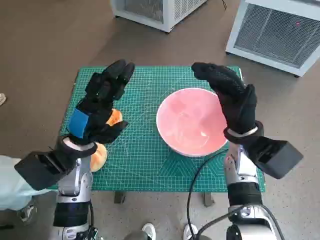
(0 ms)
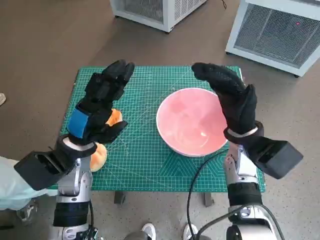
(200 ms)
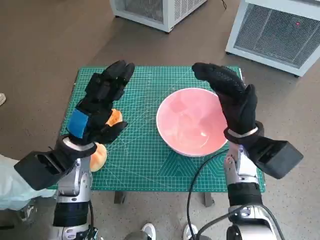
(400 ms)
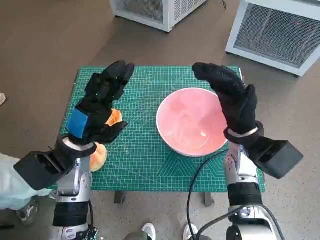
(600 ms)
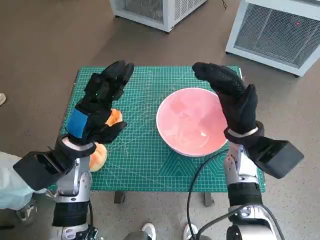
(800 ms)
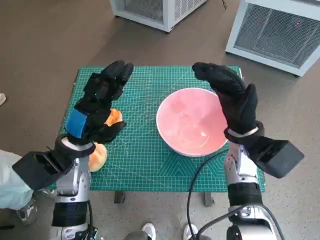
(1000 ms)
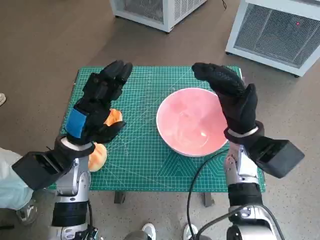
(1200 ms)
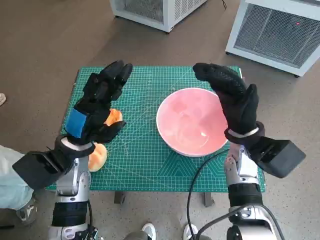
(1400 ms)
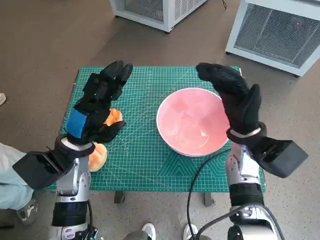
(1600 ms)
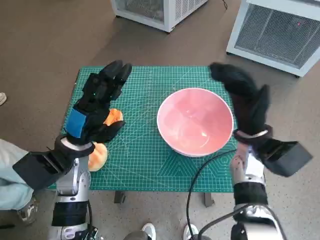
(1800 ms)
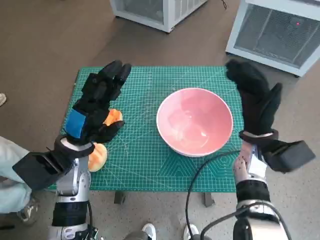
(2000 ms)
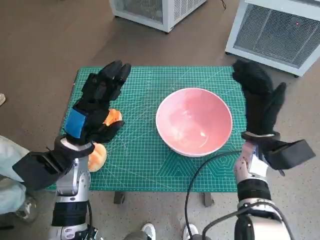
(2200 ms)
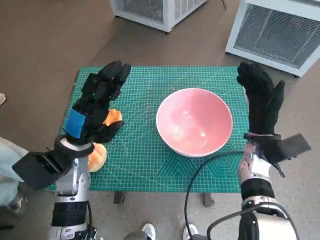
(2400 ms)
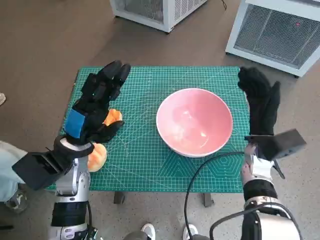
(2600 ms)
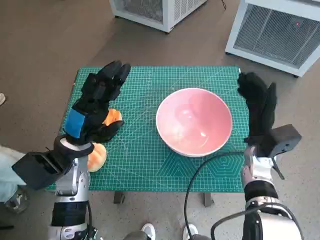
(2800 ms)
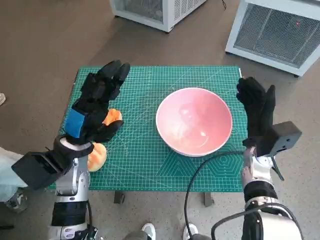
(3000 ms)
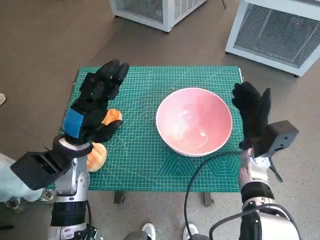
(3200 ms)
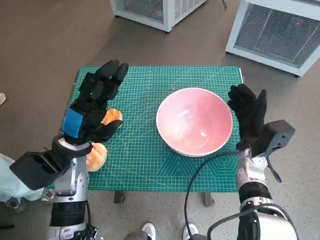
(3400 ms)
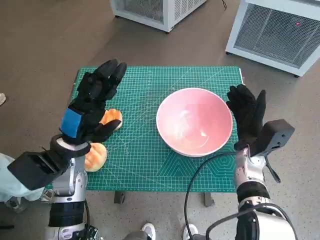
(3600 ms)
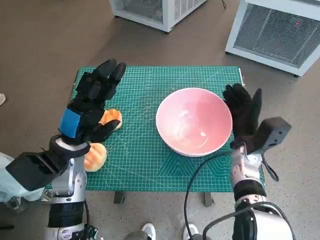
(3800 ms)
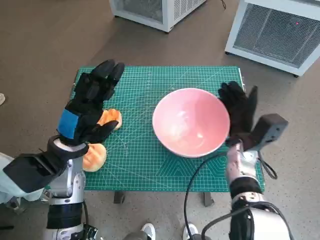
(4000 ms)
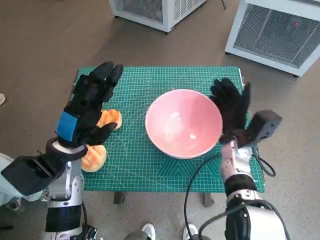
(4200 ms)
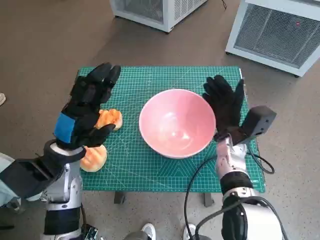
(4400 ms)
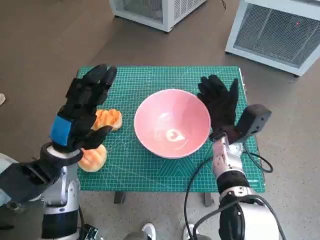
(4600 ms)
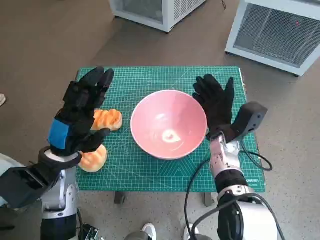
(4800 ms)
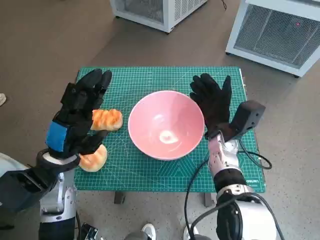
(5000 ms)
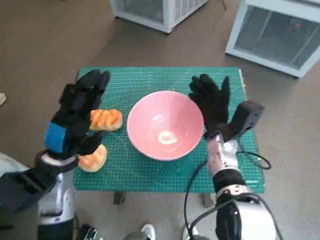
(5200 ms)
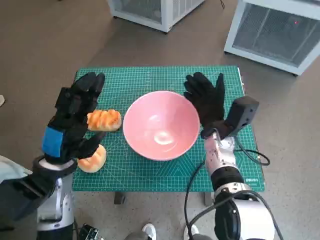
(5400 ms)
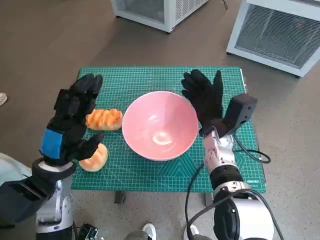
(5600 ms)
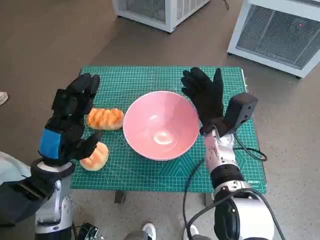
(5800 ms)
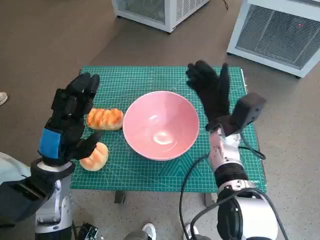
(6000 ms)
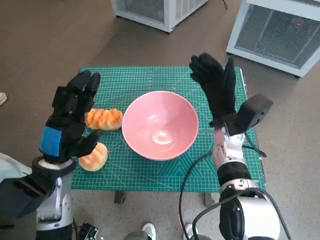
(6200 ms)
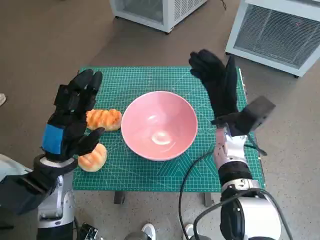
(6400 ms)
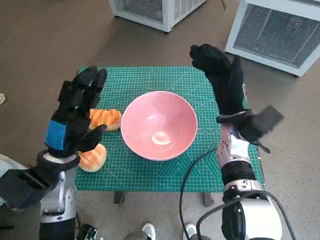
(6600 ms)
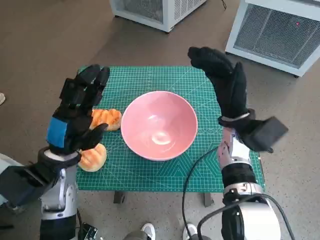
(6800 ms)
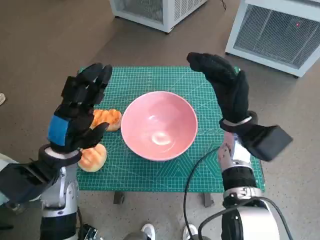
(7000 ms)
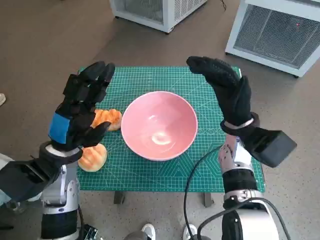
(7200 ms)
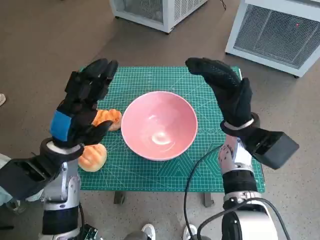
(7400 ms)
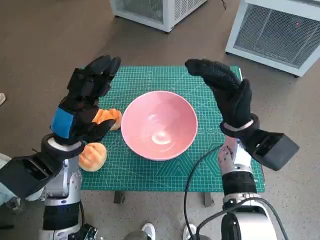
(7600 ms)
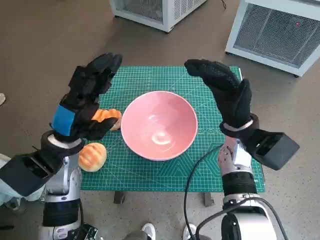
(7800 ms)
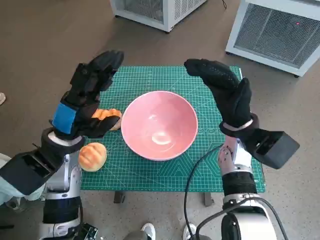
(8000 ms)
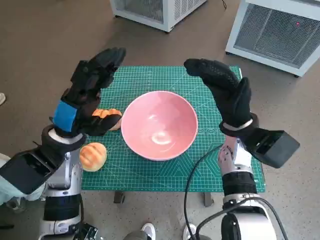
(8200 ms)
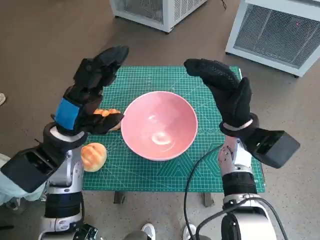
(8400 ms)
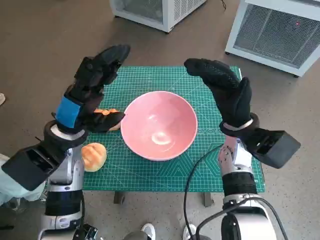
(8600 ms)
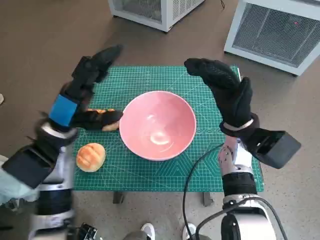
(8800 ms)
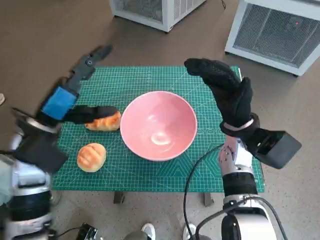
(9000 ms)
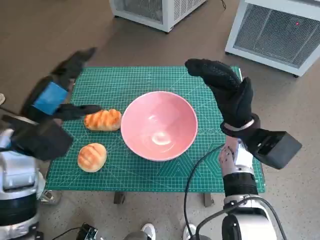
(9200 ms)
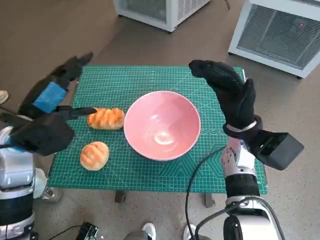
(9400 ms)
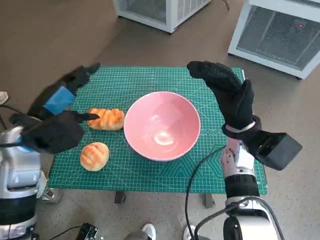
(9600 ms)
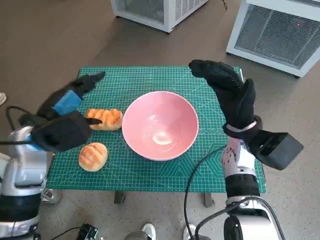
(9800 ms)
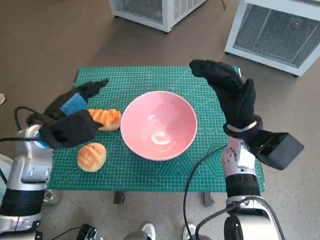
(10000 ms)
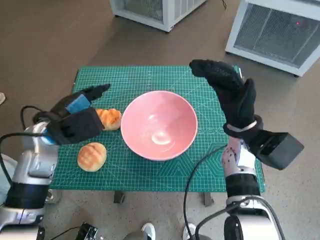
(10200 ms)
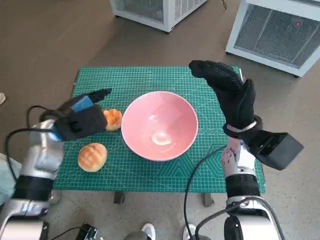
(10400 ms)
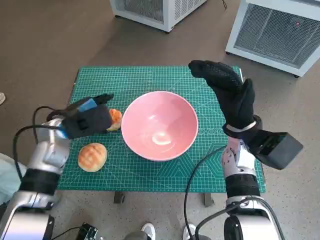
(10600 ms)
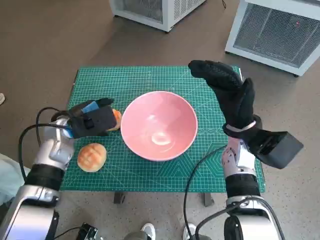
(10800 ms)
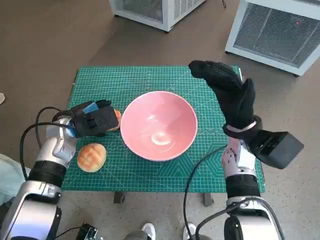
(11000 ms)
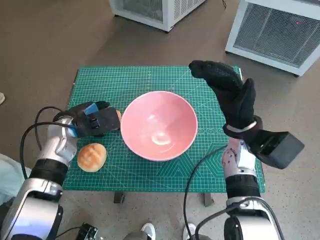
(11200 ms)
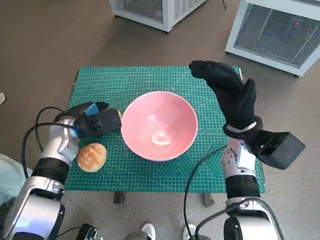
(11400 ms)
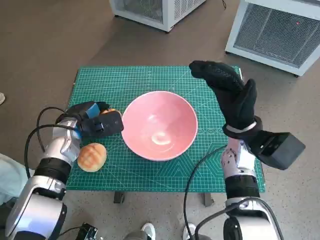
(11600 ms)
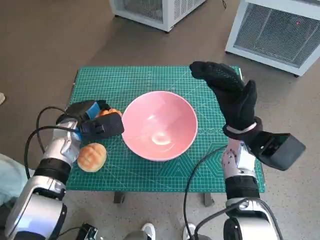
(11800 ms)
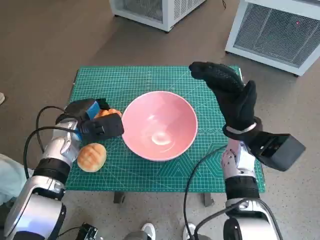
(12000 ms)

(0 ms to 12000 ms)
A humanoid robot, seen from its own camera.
Task of the whole recording: Push the bowl into the center of the table and put the bread into the bowl.
Step, 0 ms - 6000 ms: Move the pink bowl to the center of table with right hand.
Step, 6200 ms - 11400 ms: Grasp the long bread with left hand.
1600 ms - 3000 ms: The right hand shifts about 5 cm downward.
3000 ms - 4400 ms: The right hand shifts some 5 cm to the left.
7600 ms - 9000 ms: The left hand changes place by roughly 5 cm.
9000 ms - 10400 ms: The left hand ends up about 5 cm from where it was.
10400 ms - 12000 ms: The left hand changes place by some 5 cm.

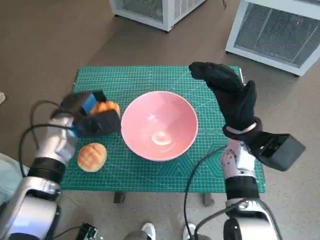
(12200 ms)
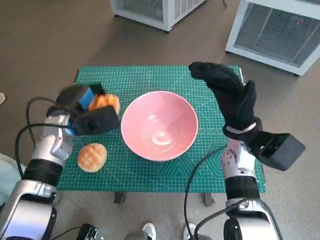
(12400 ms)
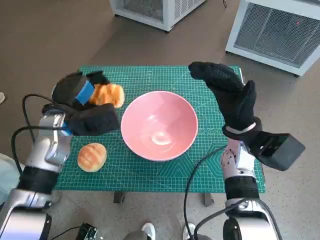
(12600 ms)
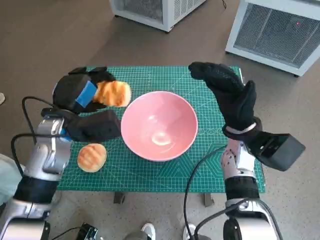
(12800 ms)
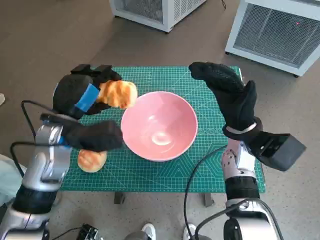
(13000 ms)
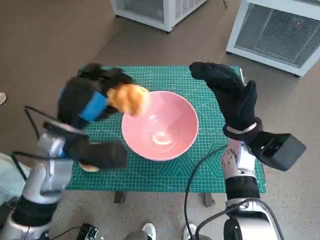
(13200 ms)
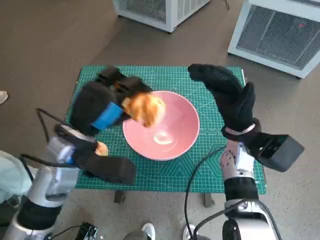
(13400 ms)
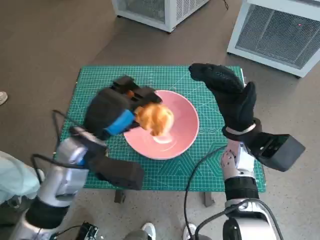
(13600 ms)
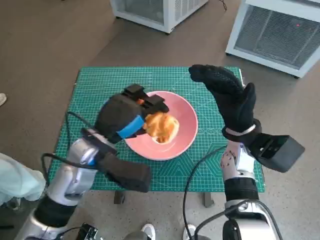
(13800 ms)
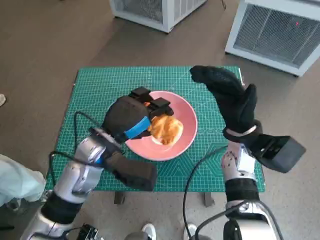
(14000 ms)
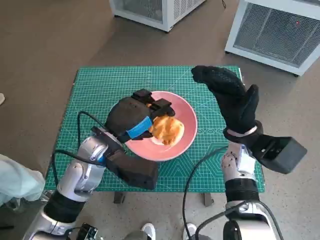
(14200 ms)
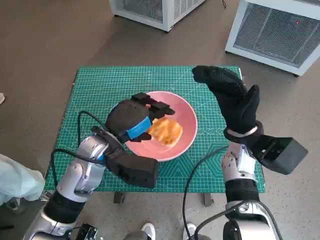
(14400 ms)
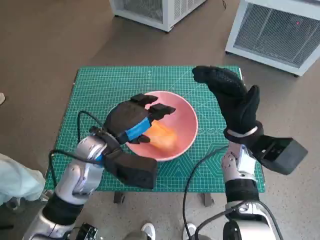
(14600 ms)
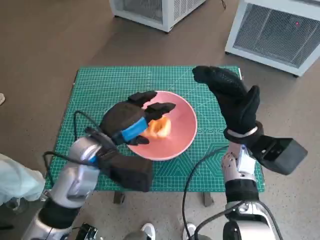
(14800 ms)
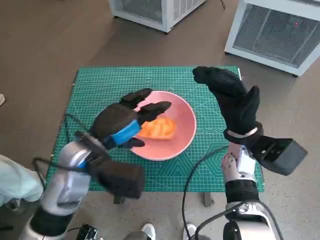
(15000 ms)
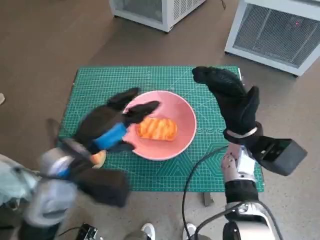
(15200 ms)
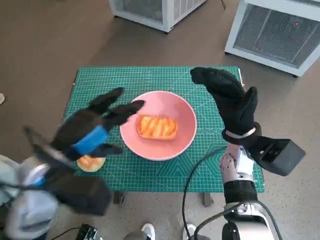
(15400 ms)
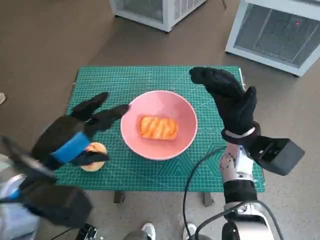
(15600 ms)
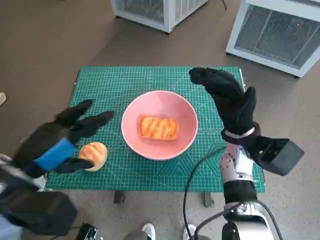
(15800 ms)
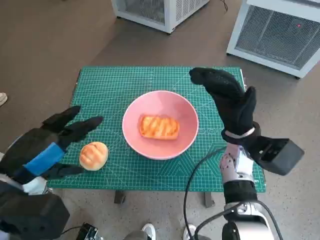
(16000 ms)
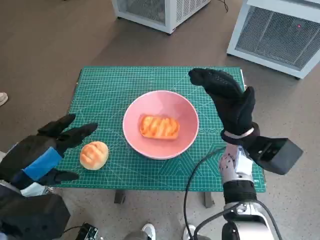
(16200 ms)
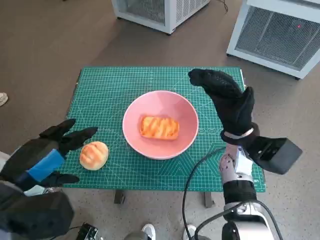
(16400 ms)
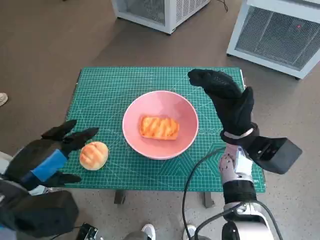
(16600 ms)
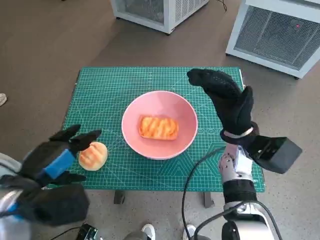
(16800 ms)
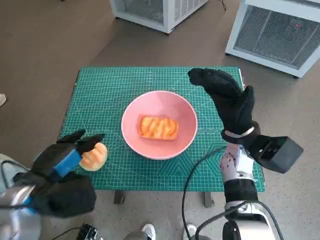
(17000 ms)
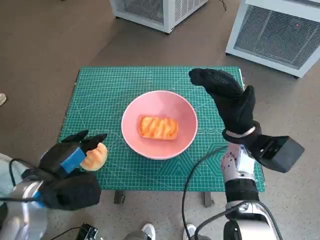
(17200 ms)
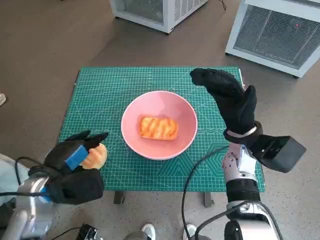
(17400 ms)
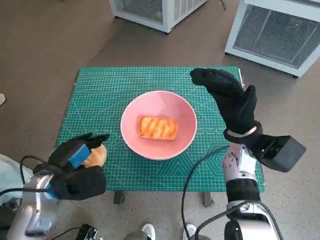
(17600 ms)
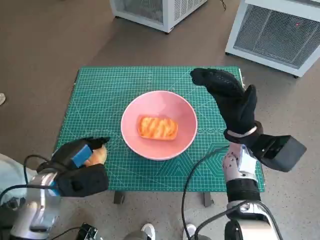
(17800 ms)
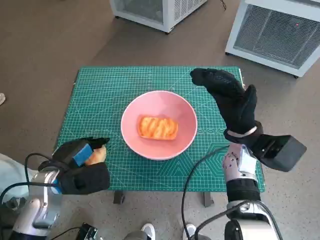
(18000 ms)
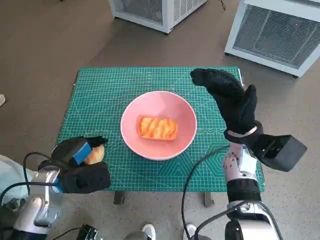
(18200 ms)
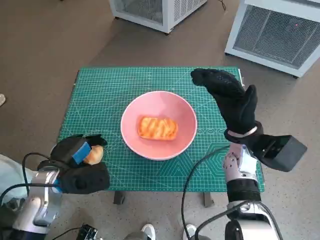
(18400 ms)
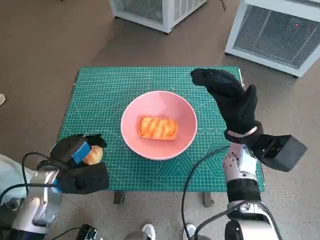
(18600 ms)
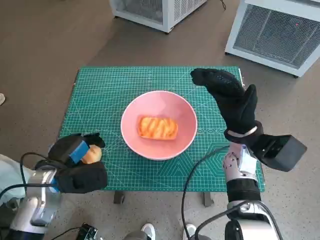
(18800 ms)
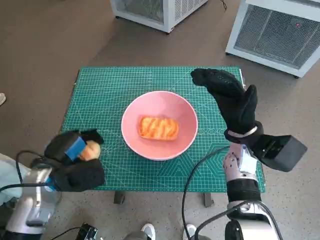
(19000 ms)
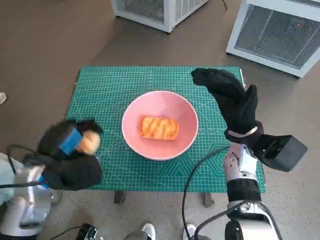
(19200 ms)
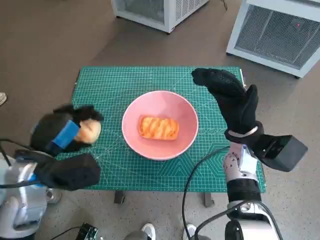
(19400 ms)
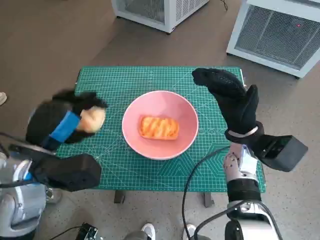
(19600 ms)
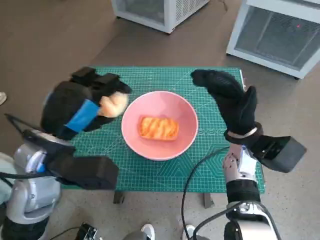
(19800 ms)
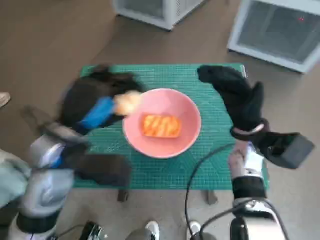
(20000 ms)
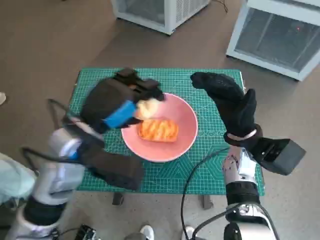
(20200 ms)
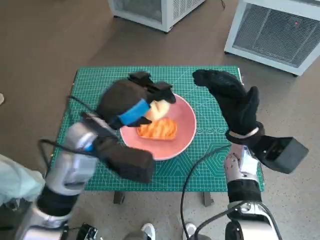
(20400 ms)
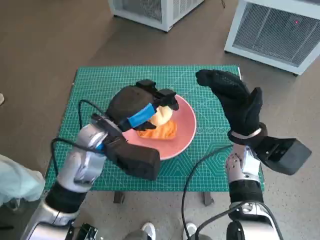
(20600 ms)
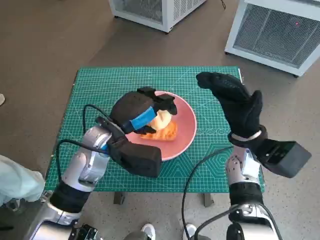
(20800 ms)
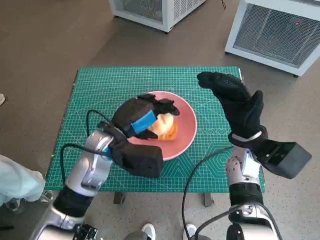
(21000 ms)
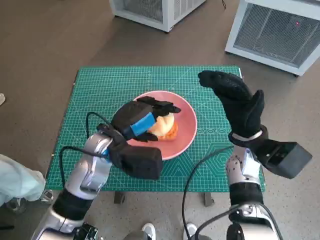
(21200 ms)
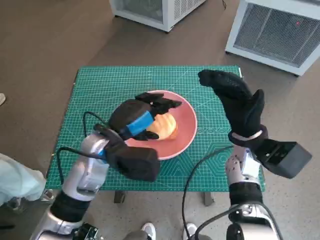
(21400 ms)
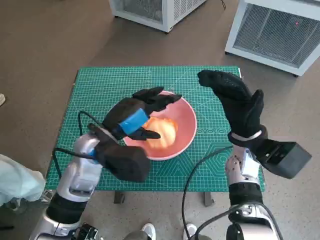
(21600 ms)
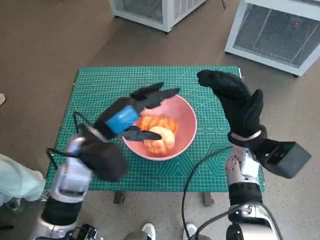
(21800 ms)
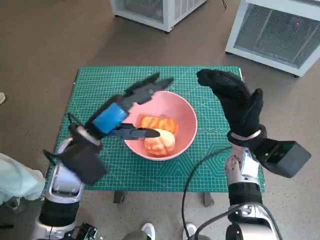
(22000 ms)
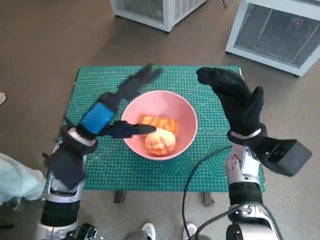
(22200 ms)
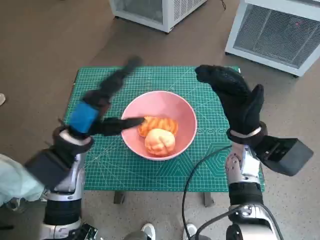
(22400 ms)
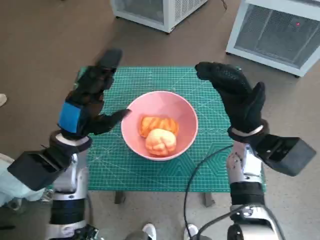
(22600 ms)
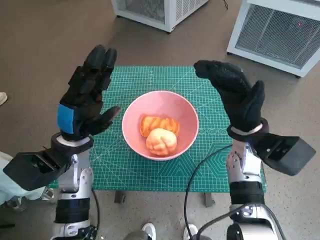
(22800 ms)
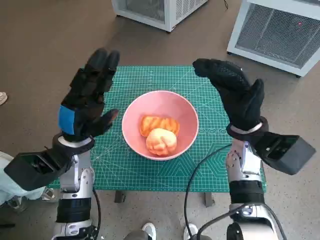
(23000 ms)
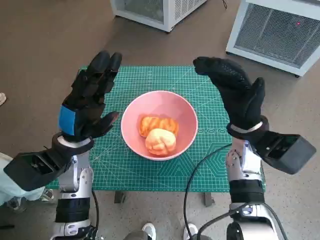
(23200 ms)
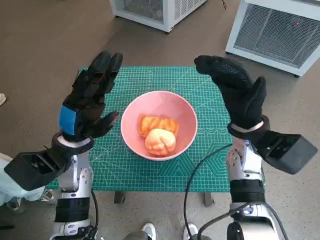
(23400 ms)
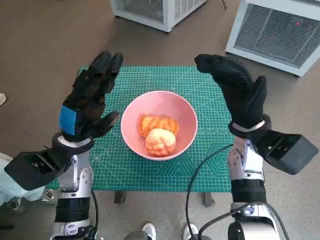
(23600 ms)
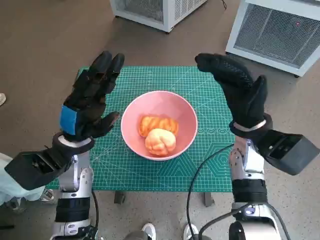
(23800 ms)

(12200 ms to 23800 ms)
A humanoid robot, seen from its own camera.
Task of the whole recording: Push the bowl into the center of the table and put the bread into the bowl.
Step, 12200 ms - 15000 ms: Place the long bread in pink bowl with left hand.
Step, 15200 ms - 17800 ms: Grasp the round bread with left hand.
Step, 18000 ms - 21600 ms: Place the round bread in pink bowl with left hand.
12200 ms - 13600 ms: The left hand is displaced to the right, backward and upward by roughly 15 cm.
13600 ms - 15000 ms: The hands make only small movements.
15000 ms - 16600 ms: The left hand shifts roughly 10 cm to the left and backward.
16600 ms - 18000 ms: The left hand travels downward and forward by roughly 10 cm.
18000 ms - 19400 ms: The left hand moves upward, roughly 5 cm.
19400 ms - 21000 ms: The left hand travels to the right and forward by about 15 cm.
21000 ms - 22400 ms: The left hand is displaced to the left by roughly 5 cm.
